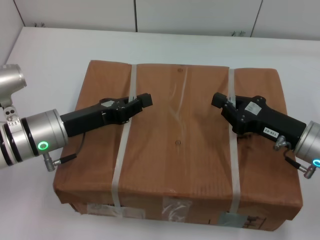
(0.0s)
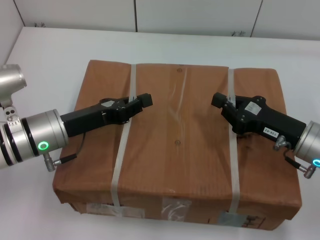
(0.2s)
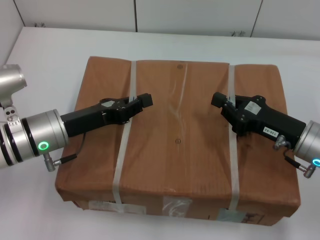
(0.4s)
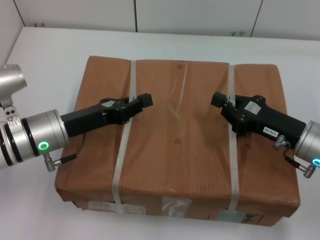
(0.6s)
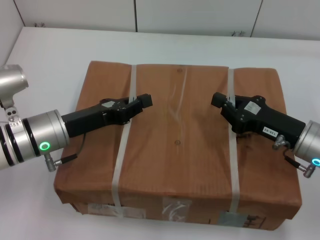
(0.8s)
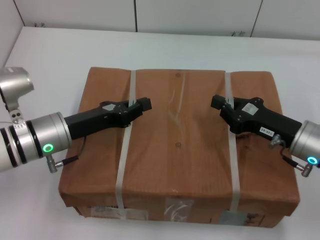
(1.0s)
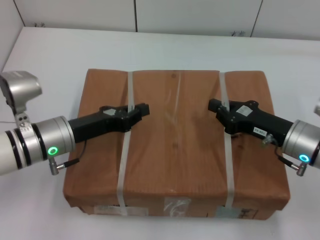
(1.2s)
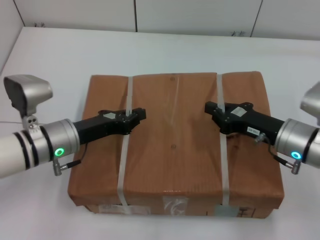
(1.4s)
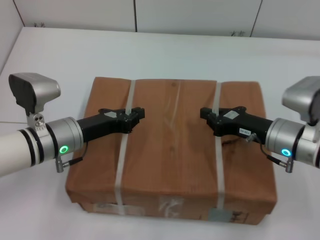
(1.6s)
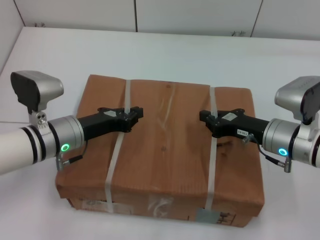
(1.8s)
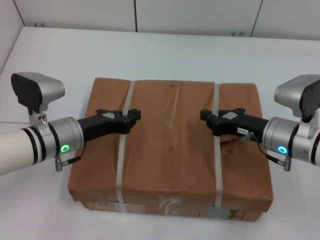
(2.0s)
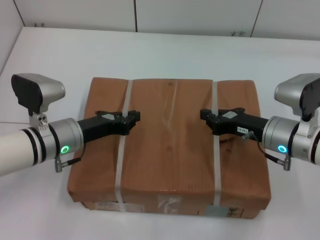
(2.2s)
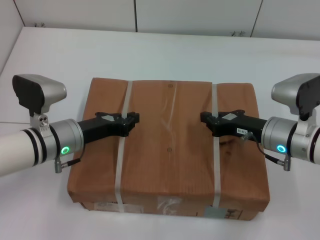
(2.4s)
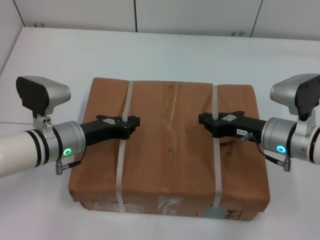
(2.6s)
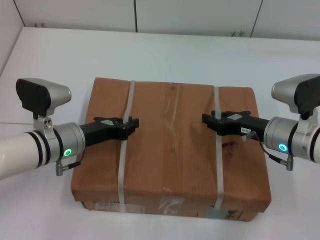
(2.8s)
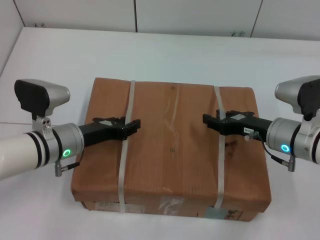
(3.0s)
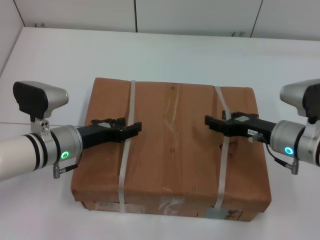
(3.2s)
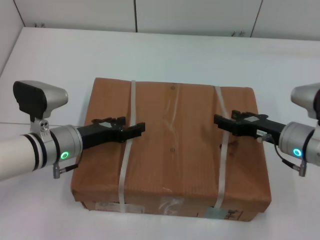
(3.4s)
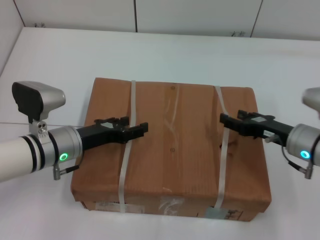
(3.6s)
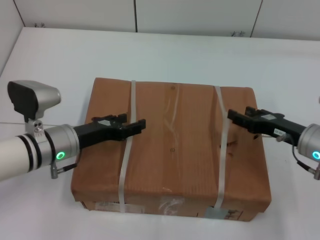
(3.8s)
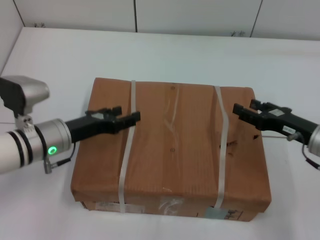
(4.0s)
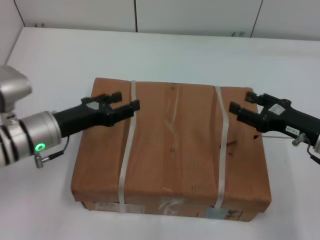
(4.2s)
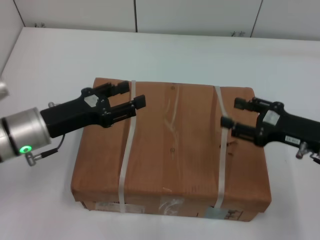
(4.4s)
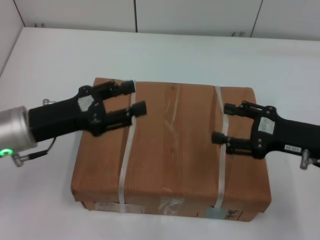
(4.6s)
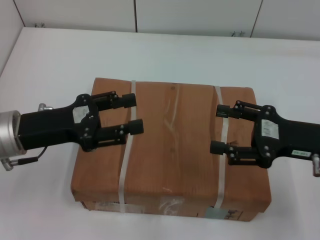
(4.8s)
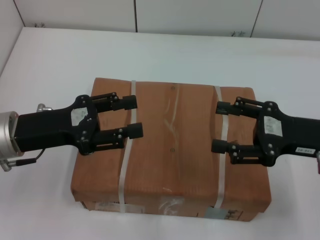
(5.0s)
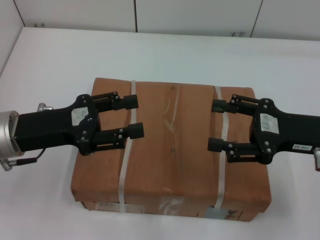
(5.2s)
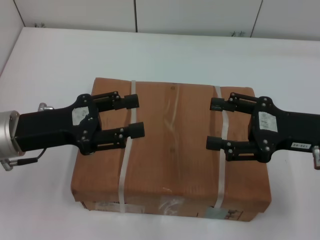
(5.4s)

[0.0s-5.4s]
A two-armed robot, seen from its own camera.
Task of the whole recording: place the box on the table with both arms.
Step, 0.0s to 2.6s: Place the box on the table with left gripper.
Step, 0.0s to 2.6s: Place the box on the table with right gripper.
Step, 2.8s to 3.4s: Loosen the box on the table with left gripper.
Step, 2.8s to 3.4s: Loosen the box on the table with right gripper.
2.8s to 4.0s: The right gripper heads to the right, covering about 5 cm, and opens, while the left gripper opens up.
4.0s to 5.4s: Both grippers move upward, some 10 cm.
